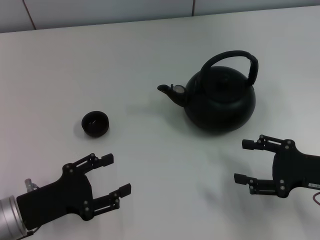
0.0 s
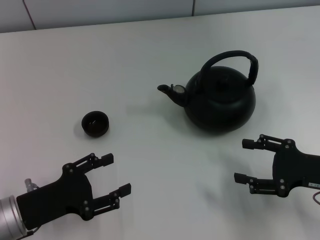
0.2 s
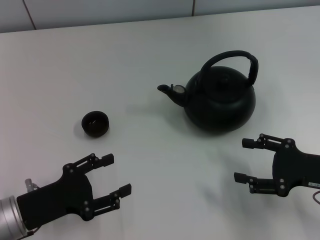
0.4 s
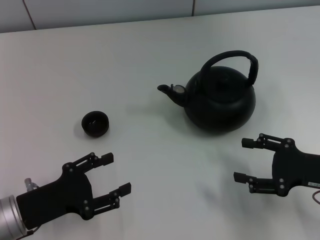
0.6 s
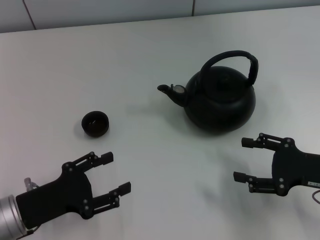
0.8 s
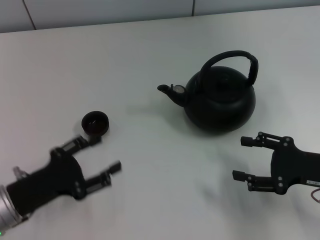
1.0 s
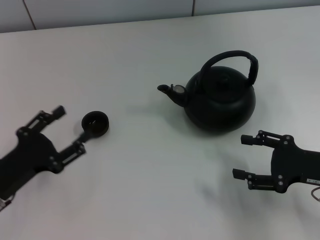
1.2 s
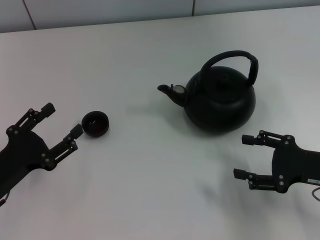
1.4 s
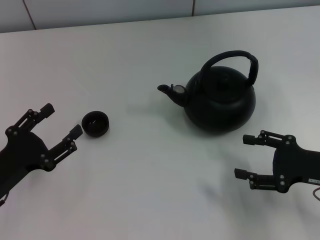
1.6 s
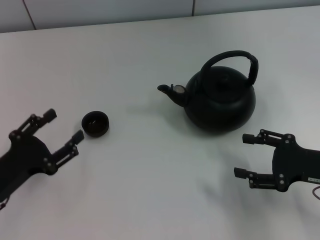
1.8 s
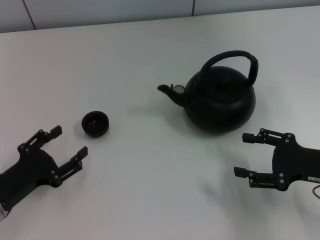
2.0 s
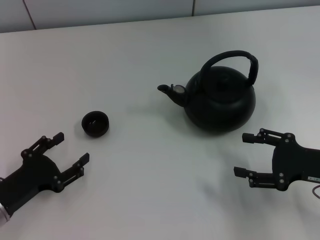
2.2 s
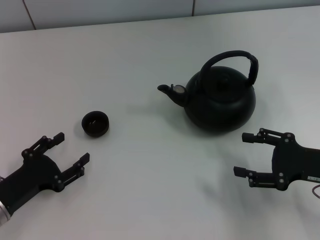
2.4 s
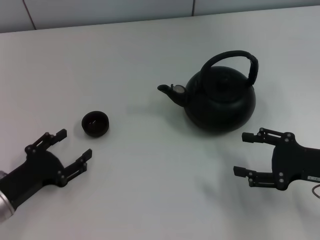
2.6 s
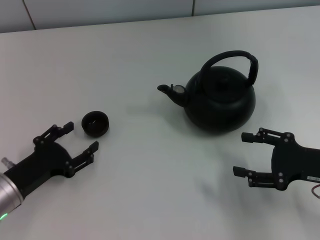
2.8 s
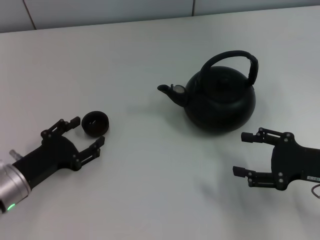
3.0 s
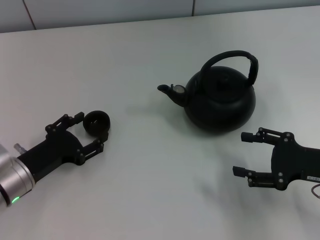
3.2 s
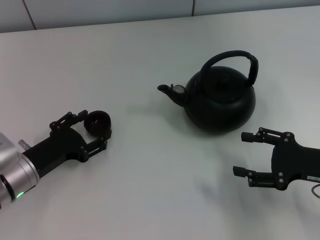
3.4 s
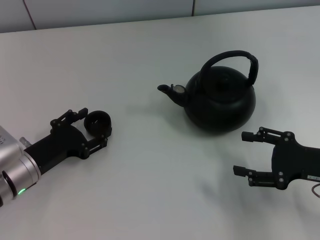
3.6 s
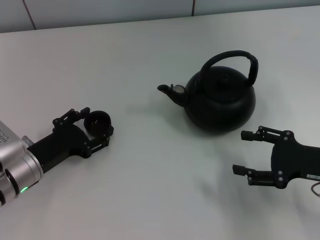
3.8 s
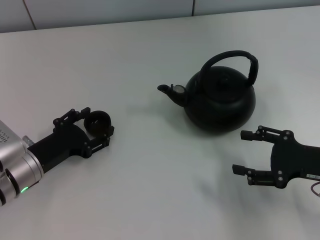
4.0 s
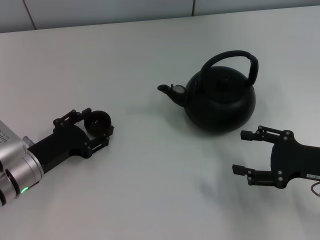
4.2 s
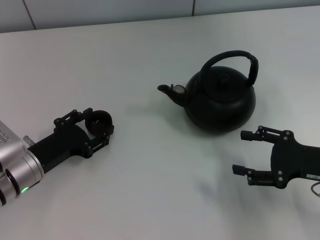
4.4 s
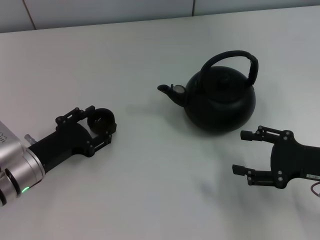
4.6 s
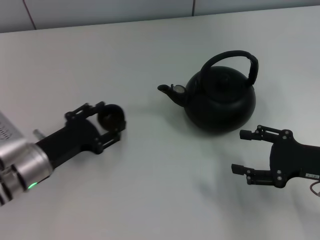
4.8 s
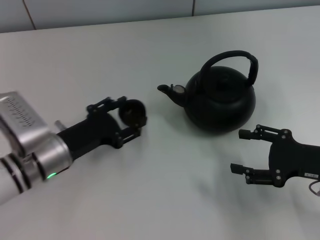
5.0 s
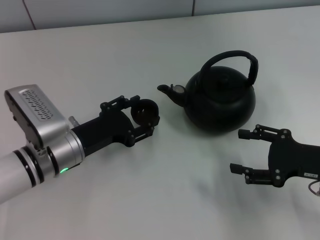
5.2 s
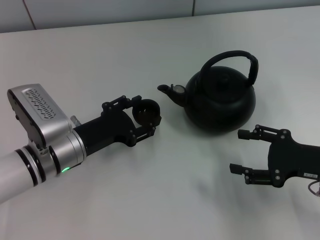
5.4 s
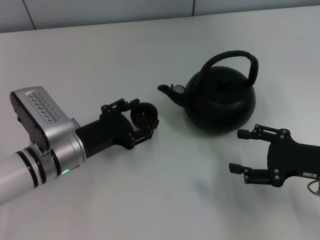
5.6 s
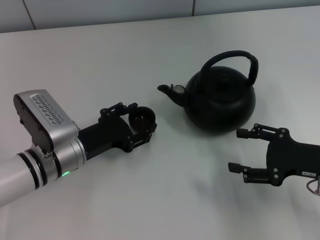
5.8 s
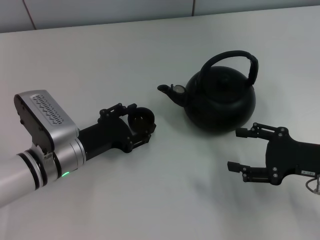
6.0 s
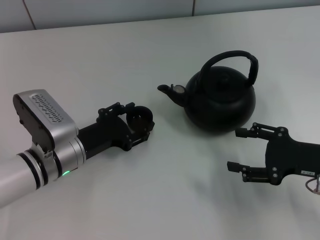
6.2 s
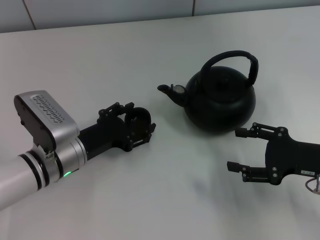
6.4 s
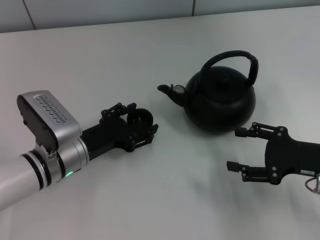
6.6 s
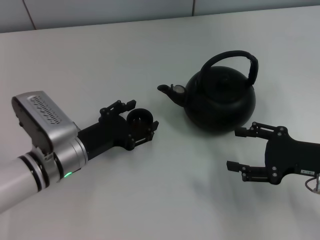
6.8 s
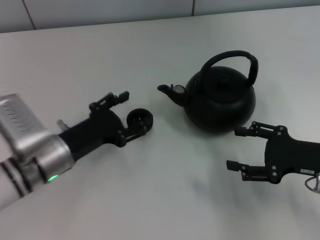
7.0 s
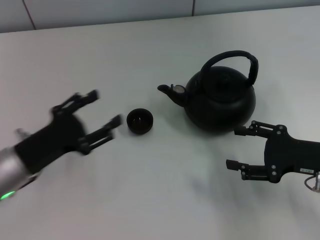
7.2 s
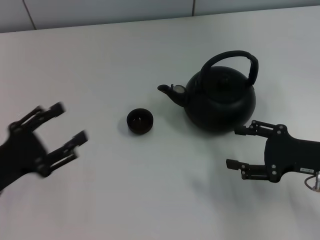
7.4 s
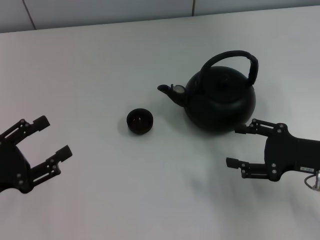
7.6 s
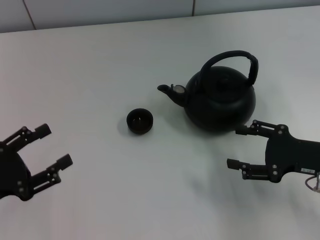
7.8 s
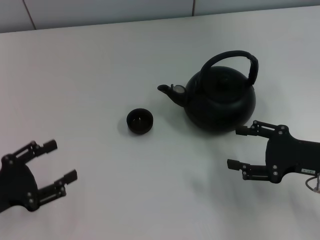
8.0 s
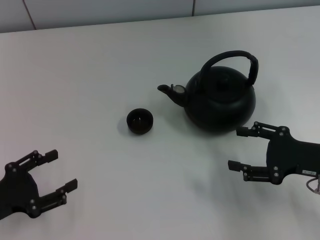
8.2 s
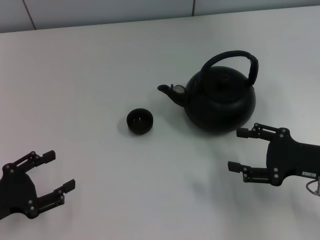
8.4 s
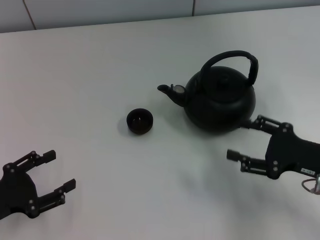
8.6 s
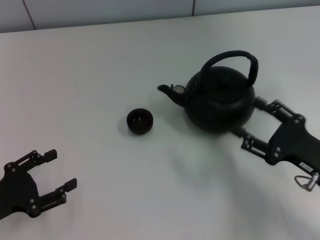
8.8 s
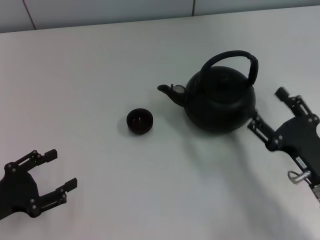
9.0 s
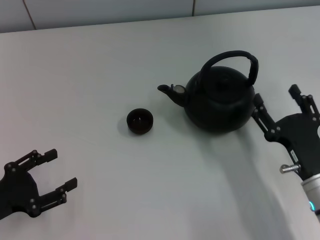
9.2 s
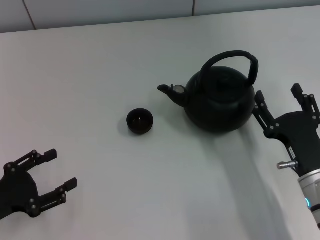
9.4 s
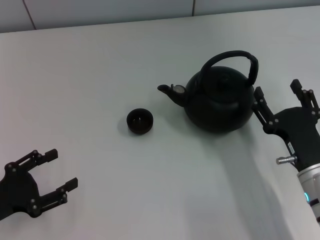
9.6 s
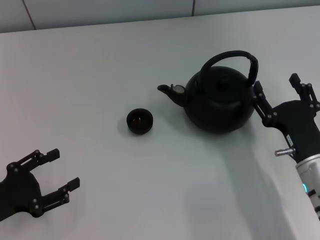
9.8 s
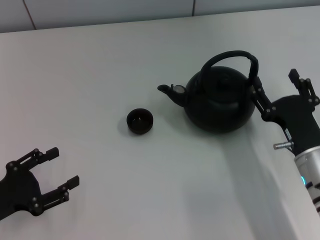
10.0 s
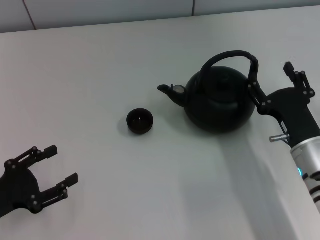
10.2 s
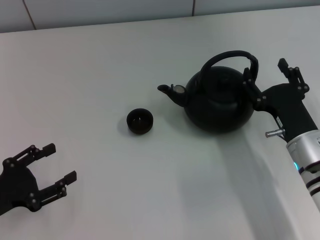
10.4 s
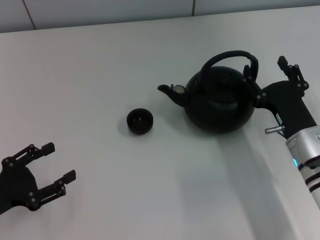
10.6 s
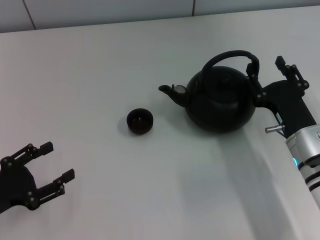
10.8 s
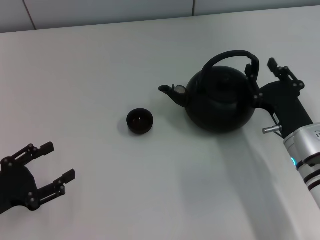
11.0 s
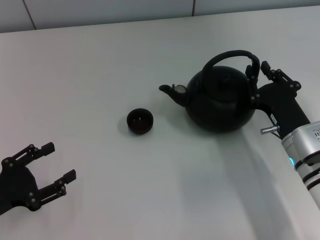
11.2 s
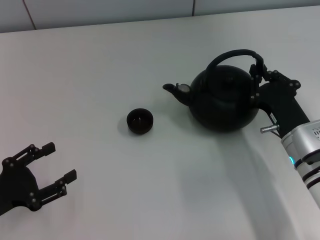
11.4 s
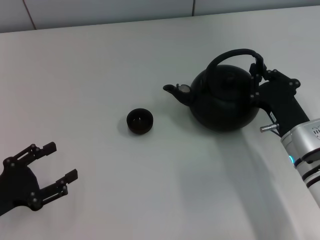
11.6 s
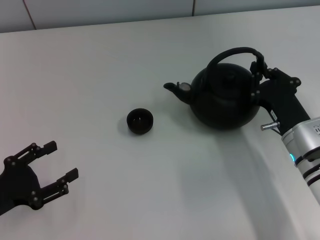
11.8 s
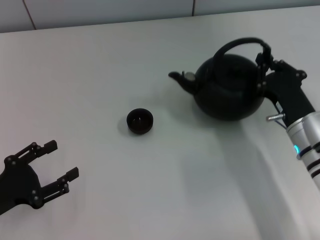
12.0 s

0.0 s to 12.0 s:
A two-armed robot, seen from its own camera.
Task of the whole recording: Grasp the handle of the teapot with one hand and pour tea into the teacup.
Step, 0.0 to 4.6 s: Pick up the teacup with the left gripper.
Step, 4.8 to 7.2 s: Place the teacup in the center of view with the left gripper.
Step, 7.4 to 12.0 s: Pick up the teapot with the right gripper.
1.6 to 3.0 s: The left gripper changes place by roughly 5 cm.
3.0 to 4.4 s: There are only small adjustments of the grippers.
4.4 to 6.0 s: The left gripper shifts some 5 cm to the right.
6.0 to 7.6 s: The left gripper moves to the left and backward, roughly 15 cm.
7.6 to 9.0 s: The right gripper goes some 5 cm backward.
9.0 to 10.4 s: The right gripper goes about 5 cm forward.
10.4 to 12.0 s: The right gripper closes up.

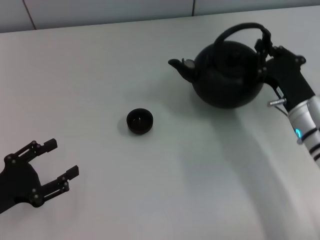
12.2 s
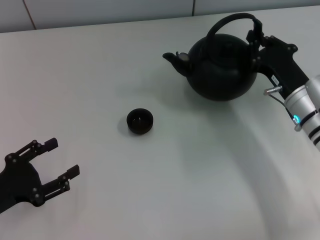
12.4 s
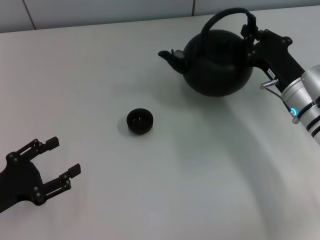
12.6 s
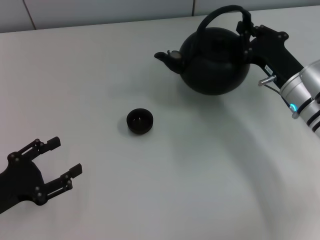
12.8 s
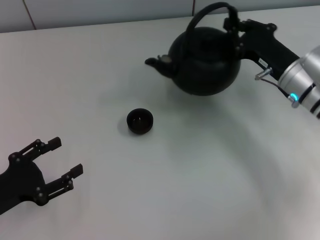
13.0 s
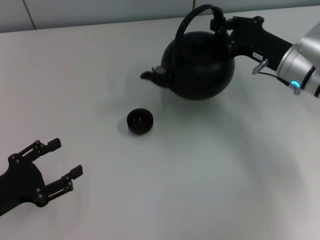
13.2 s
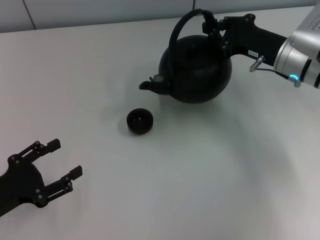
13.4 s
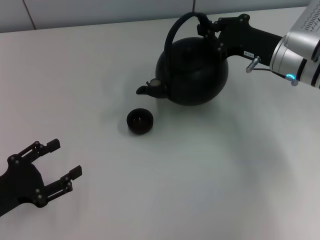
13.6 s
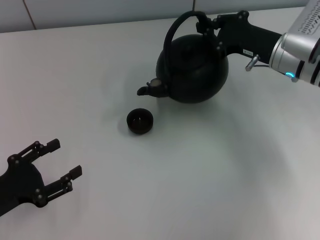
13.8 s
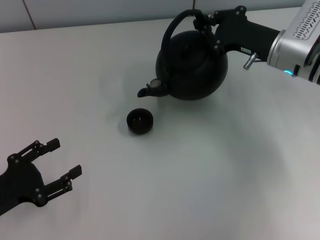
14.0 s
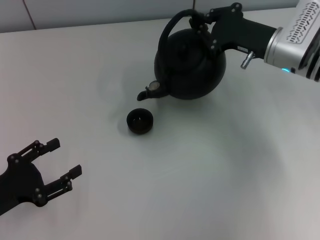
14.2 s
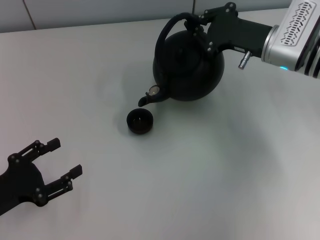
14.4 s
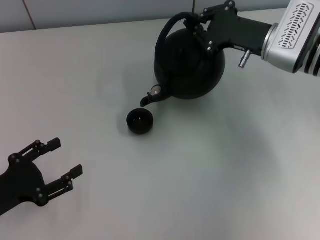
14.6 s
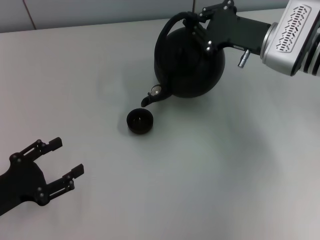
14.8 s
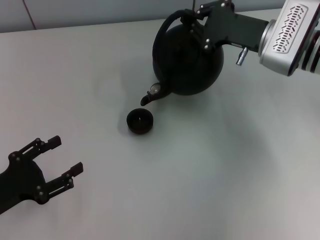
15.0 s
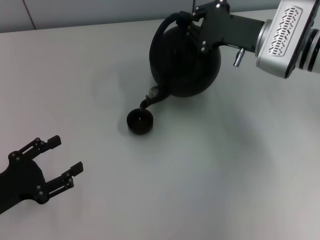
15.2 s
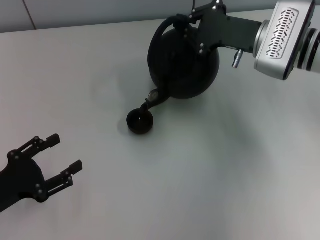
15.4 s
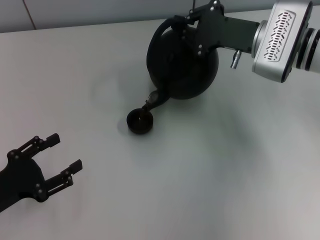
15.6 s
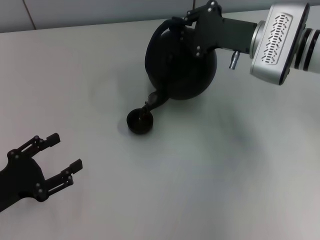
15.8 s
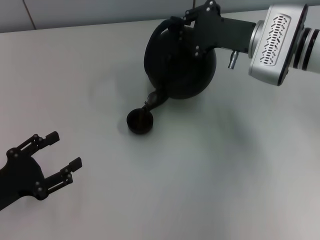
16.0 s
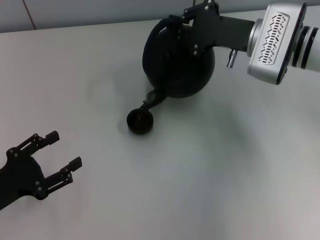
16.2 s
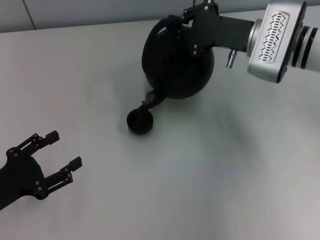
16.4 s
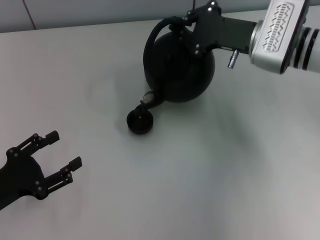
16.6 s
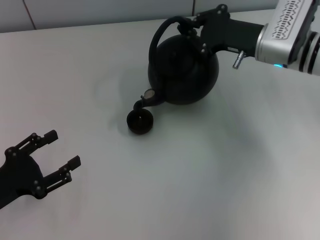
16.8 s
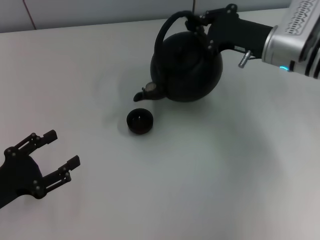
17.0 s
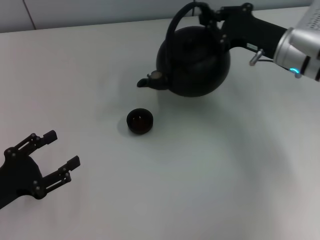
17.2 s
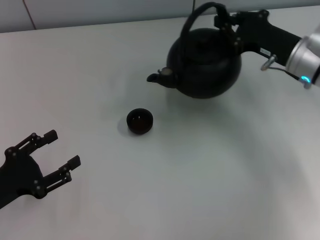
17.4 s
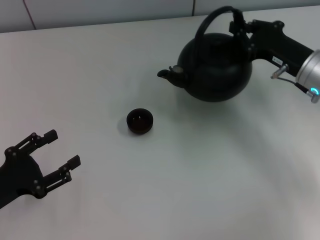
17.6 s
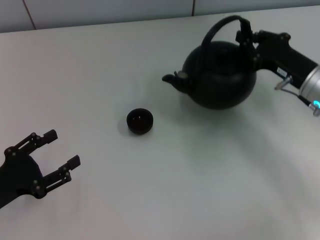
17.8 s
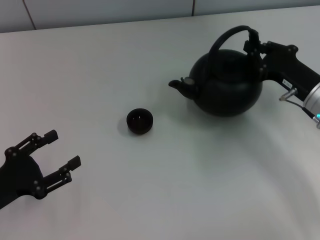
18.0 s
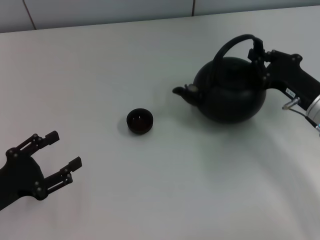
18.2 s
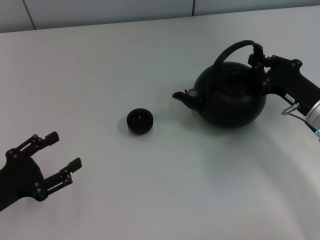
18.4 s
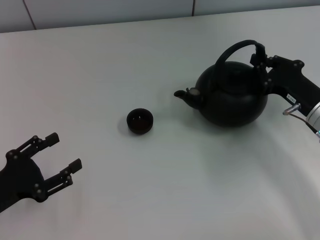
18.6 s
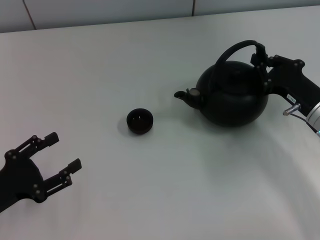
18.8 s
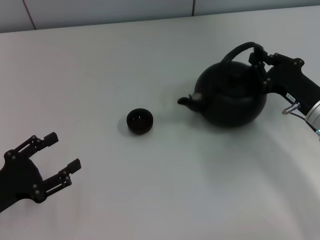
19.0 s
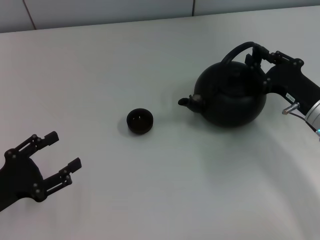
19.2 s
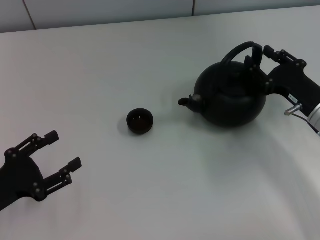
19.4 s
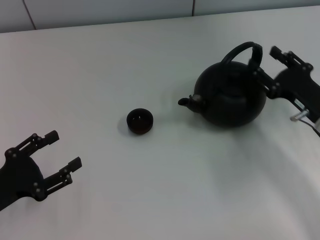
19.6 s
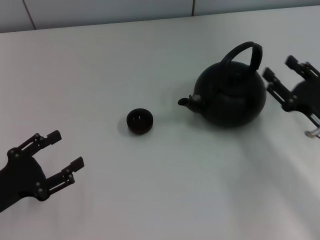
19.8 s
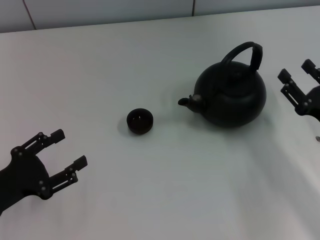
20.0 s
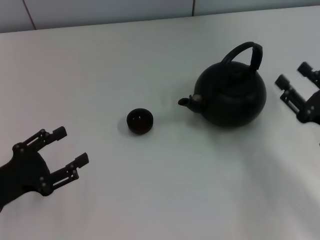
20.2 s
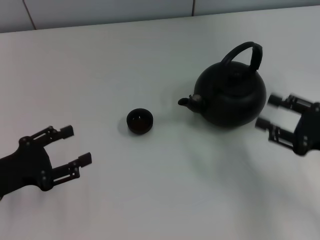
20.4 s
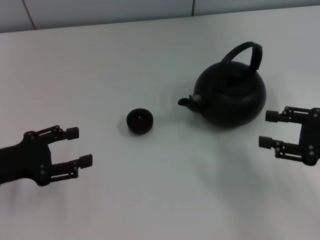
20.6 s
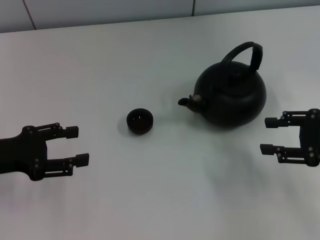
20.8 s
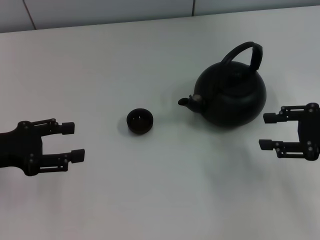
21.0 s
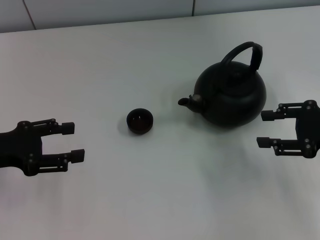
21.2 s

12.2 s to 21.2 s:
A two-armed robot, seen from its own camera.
Task of the whole recording: Grasp the handle of the teapot with one hand and pour tea into the teacup.
Step, 17.0 to 19.4 s: Put down the teapot with the right gripper.
12.2 to 13.8 s: The right gripper moves forward and upward, approximately 10 cm.
15.2 to 16.6 s: The grippers move only a little.
16.6 to 18.2 s: The right gripper goes approximately 15 cm backward, downward and to the right.
18.2 to 19.8 s: The right gripper shifts some 5 cm backward, and opens its fingers.
19.8 to 21.2 s: The right gripper is displaced upward by approximately 10 cm; the left gripper moves forward and upward, some 10 cm.
